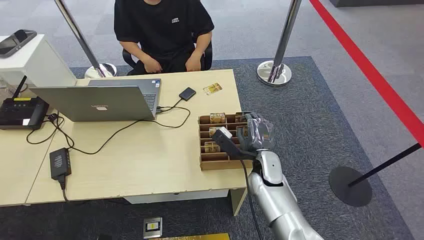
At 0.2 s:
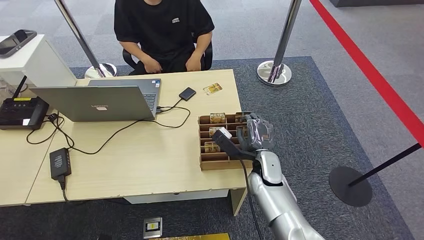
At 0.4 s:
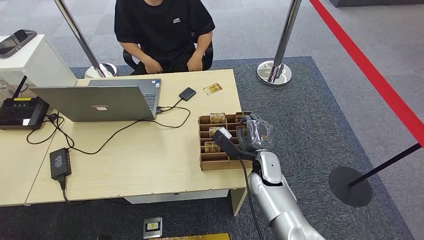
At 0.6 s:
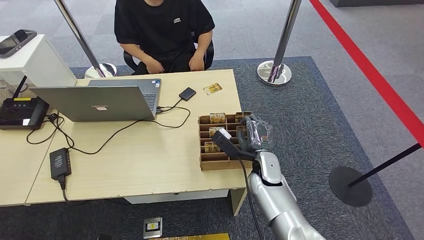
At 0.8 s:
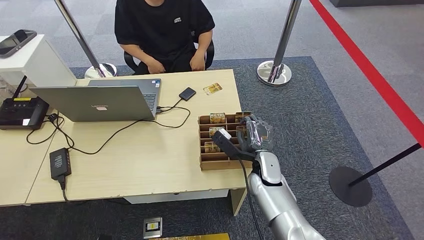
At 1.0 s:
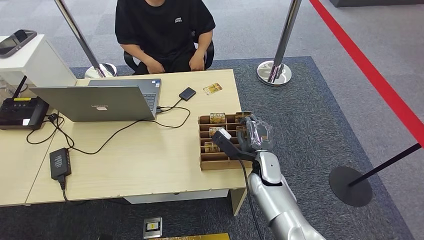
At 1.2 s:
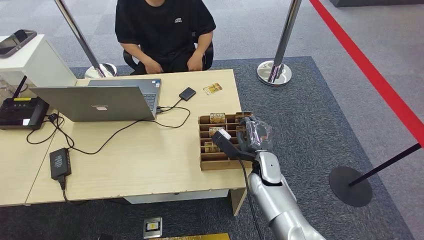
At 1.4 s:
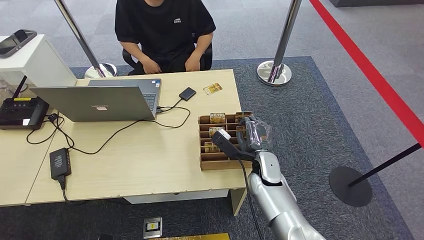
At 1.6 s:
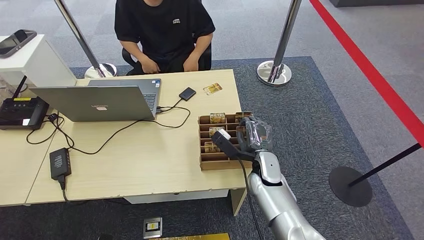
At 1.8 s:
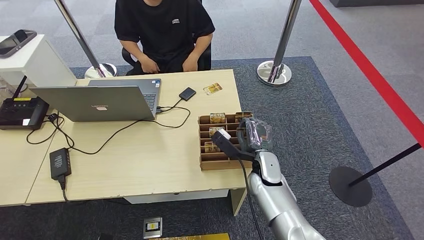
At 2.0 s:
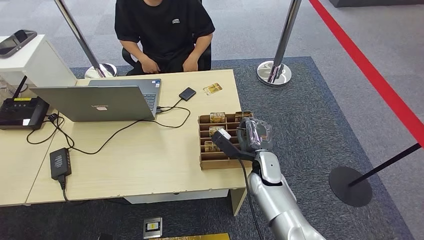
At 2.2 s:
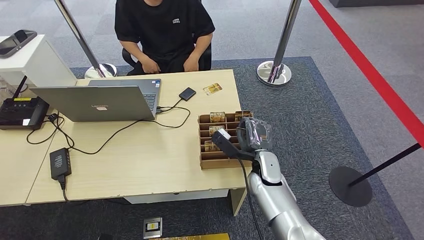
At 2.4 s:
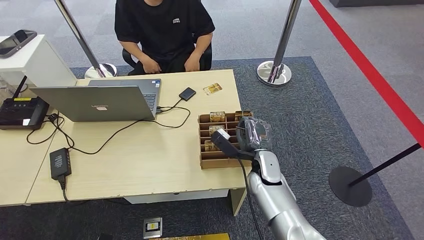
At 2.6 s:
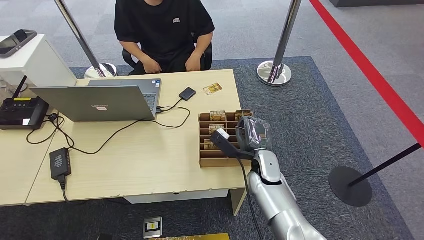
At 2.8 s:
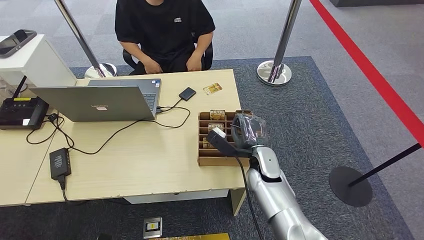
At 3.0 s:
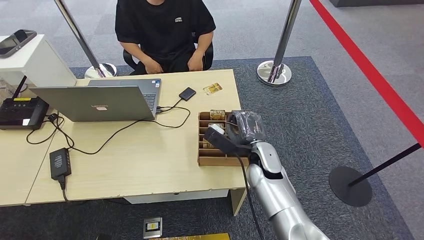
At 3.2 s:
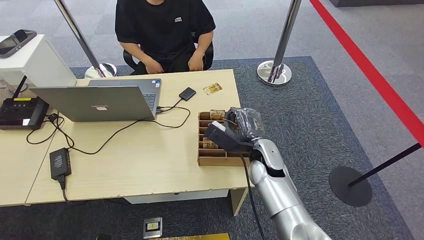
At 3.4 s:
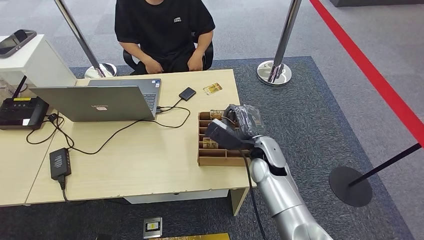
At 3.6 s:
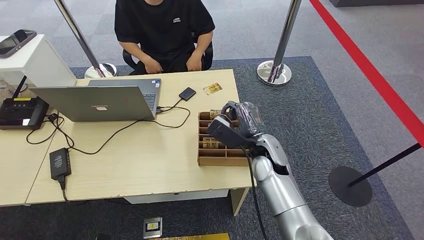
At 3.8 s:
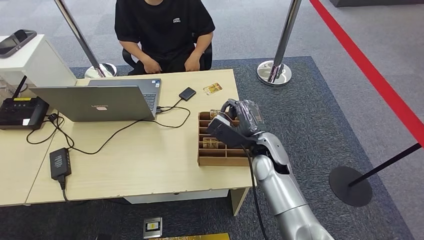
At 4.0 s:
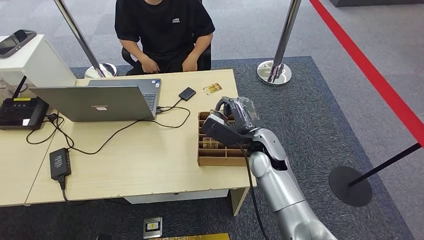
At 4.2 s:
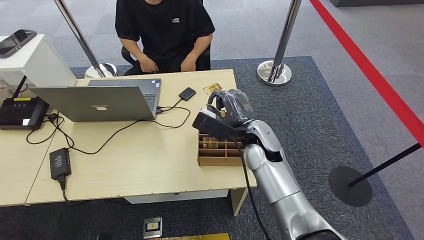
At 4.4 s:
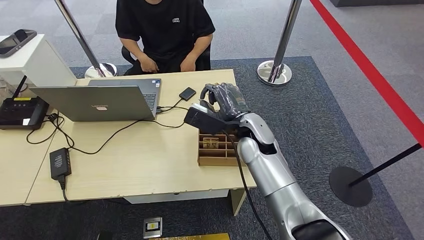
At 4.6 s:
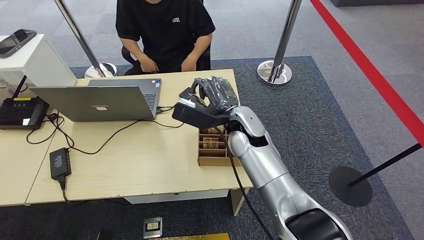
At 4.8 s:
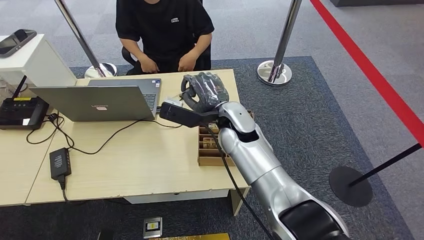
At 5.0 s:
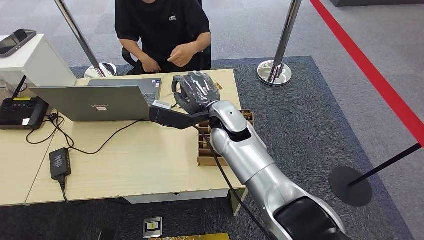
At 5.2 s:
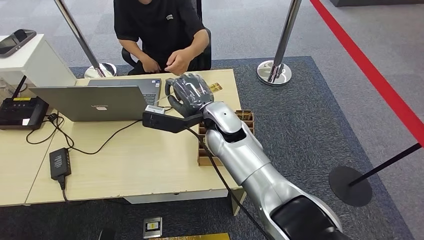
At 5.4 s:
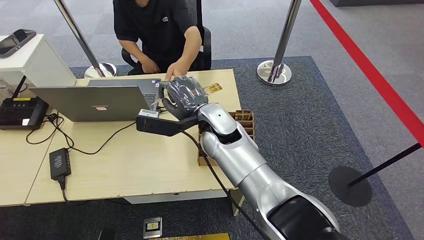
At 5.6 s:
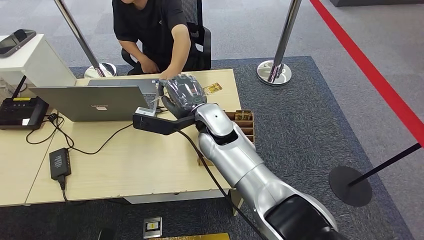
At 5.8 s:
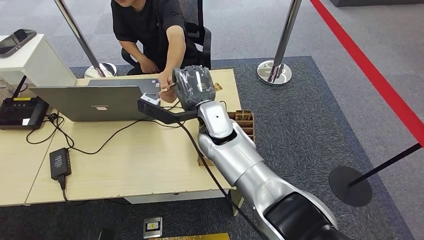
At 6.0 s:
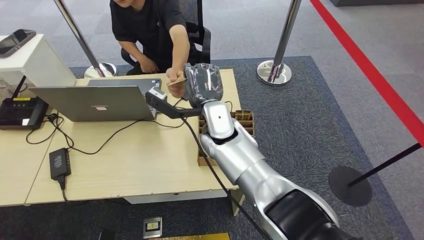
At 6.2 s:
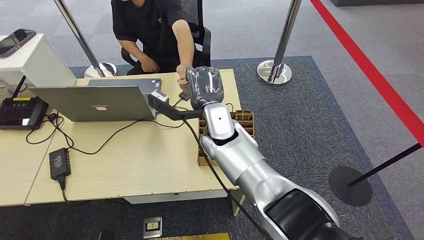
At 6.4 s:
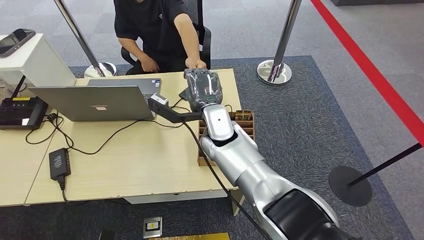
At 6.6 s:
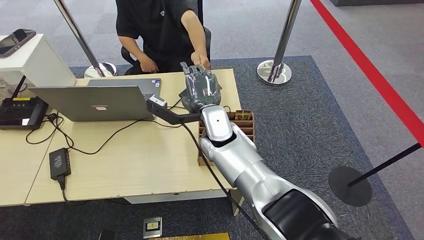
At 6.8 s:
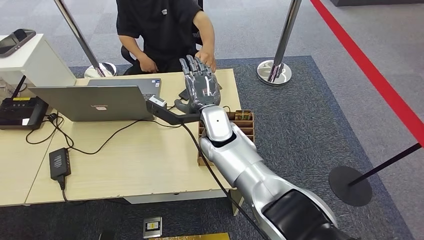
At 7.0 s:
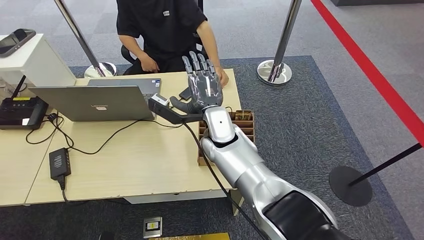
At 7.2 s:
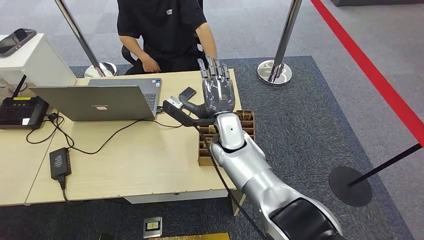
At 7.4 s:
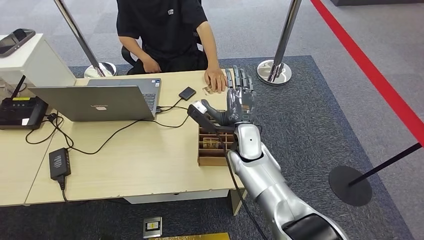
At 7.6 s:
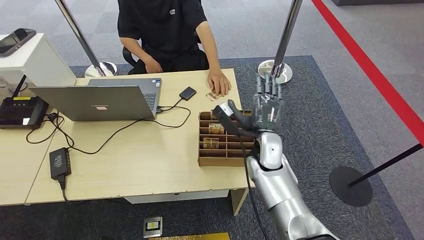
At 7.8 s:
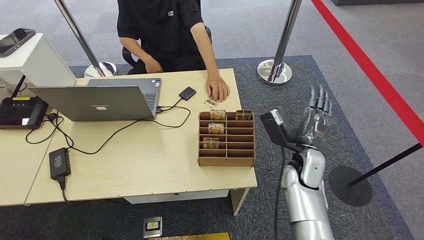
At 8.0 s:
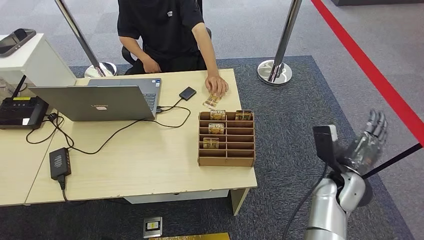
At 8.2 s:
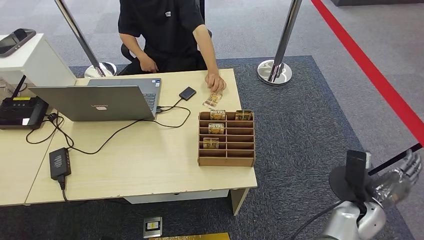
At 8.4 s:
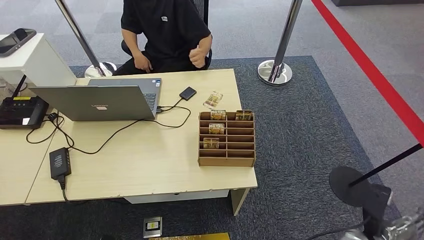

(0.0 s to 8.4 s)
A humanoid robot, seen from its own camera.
Step, 0.0 s - 4.8 s: Pick up the key card from the card box.
Step, 5.0 s - 8.4 s: Hand the key card to the target.
1.4 s - 2.8 s: The hands make only small movements.
2.8 s - 4.2 s: The right hand is displaced upward by approximately 10 cm.
4.2 s - 5.6 s: The right hand moves to the left, roughly 10 cm.
7.0 s - 8.4 s: The right hand moves to the right, downward and backward, approximately 40 cm.

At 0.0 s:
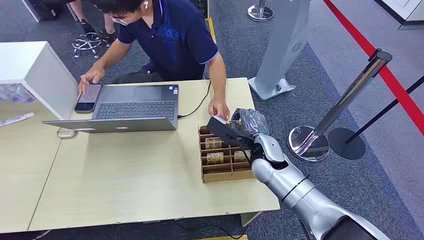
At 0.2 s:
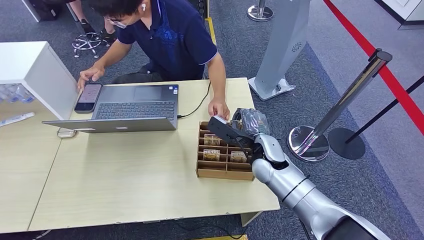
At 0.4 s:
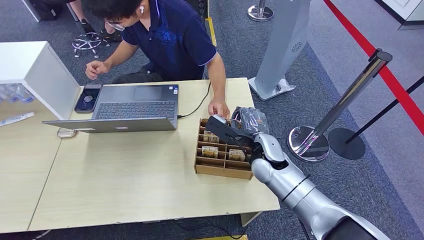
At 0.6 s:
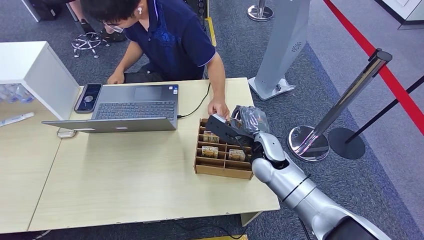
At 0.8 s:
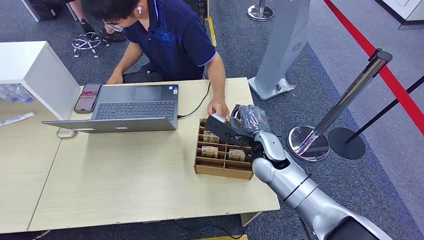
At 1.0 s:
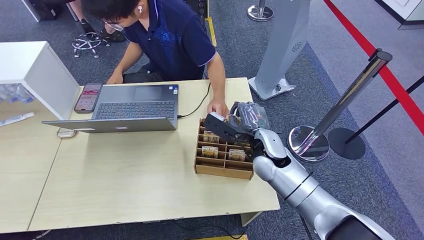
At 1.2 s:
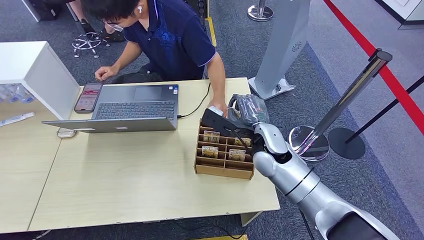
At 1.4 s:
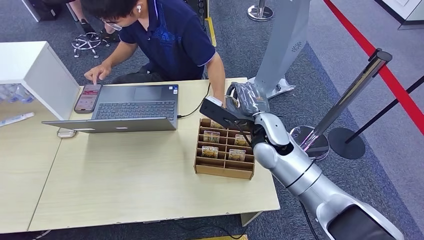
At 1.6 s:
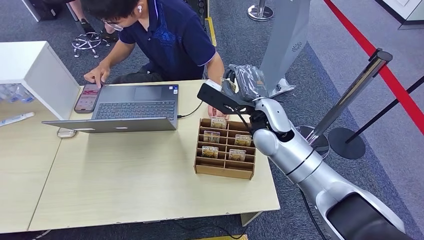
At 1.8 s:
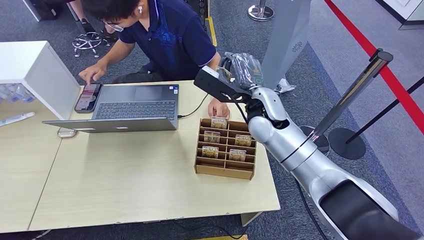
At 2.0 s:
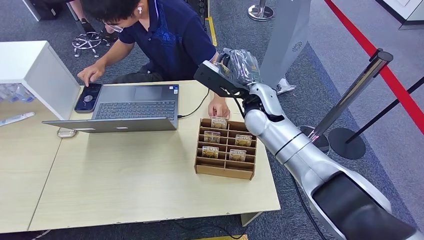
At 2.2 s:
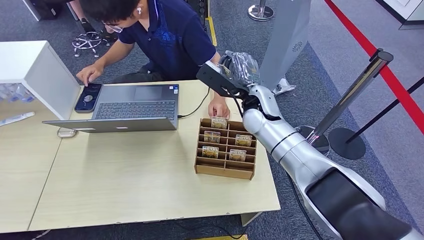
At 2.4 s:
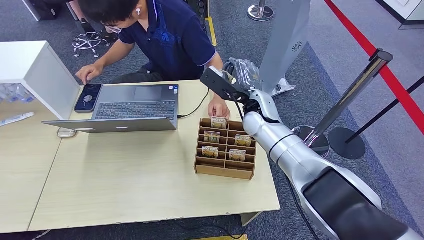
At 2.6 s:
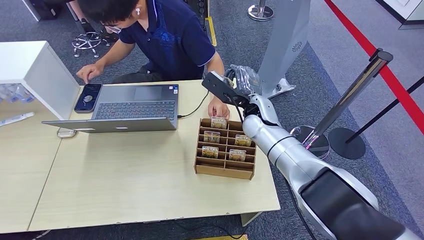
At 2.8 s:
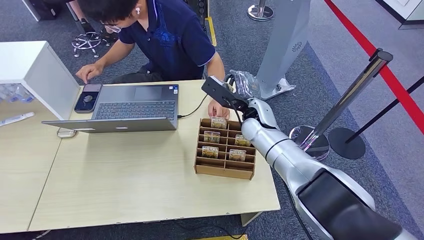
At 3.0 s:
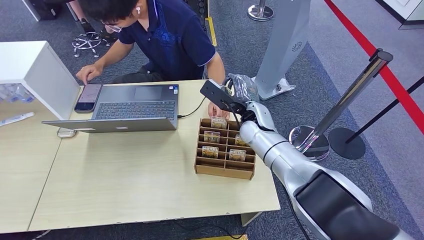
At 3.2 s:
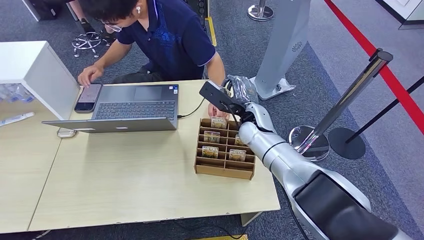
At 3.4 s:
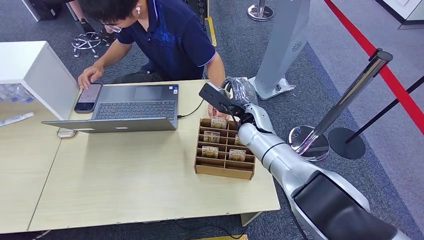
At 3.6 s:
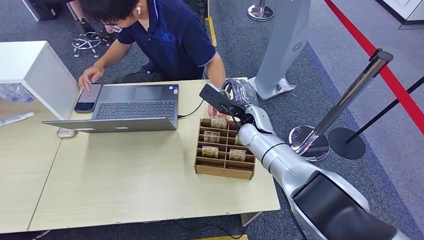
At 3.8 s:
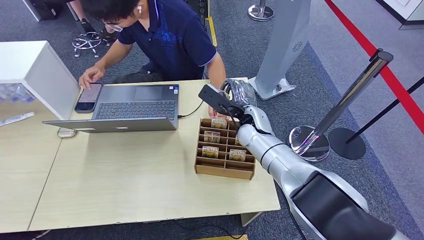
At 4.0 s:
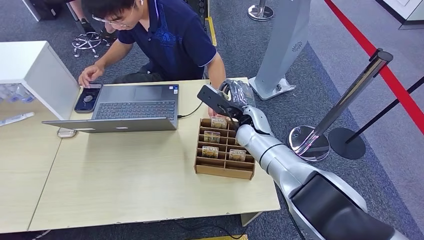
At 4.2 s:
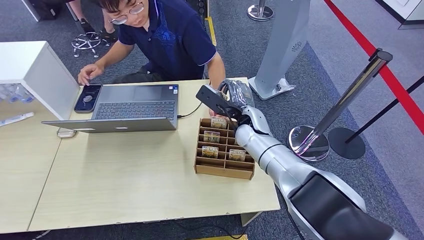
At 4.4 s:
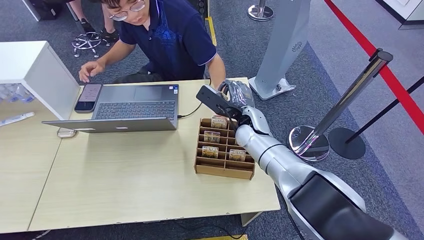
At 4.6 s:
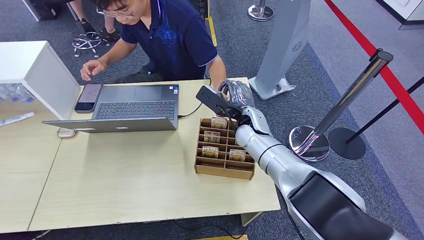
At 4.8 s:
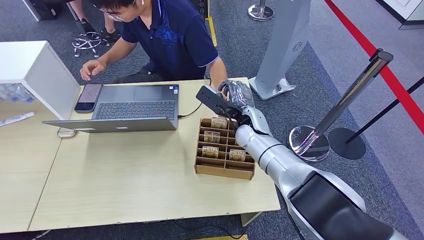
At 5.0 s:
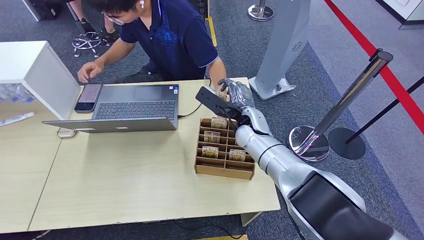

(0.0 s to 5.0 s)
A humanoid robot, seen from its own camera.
Step, 0.0 s - 1.6 s: Pick up the key card from the card box.
1.6 s - 3.4 s: The right hand moves downward and forward, about 10 cm.
3.4 s - 5.0 s: Both hands stay put.
